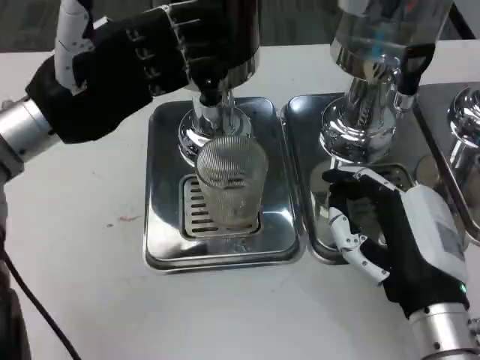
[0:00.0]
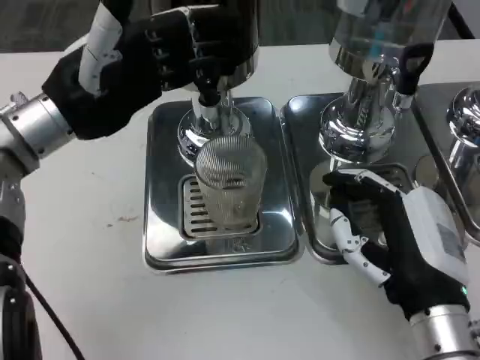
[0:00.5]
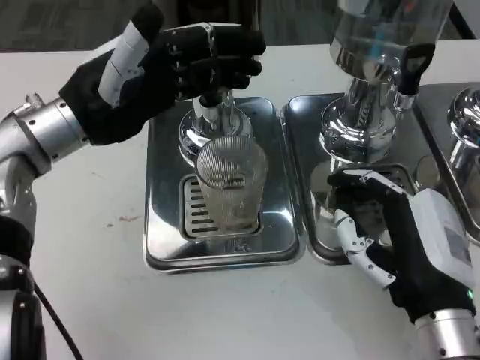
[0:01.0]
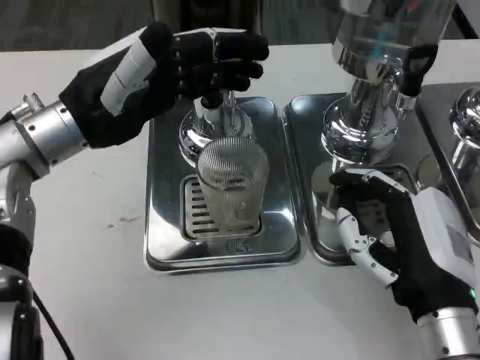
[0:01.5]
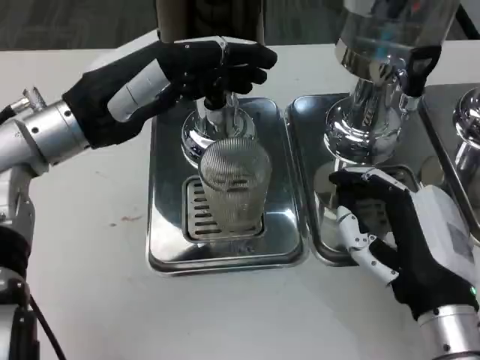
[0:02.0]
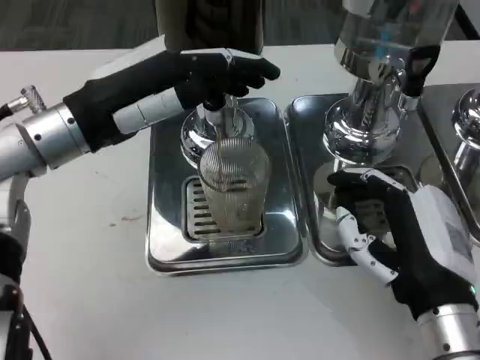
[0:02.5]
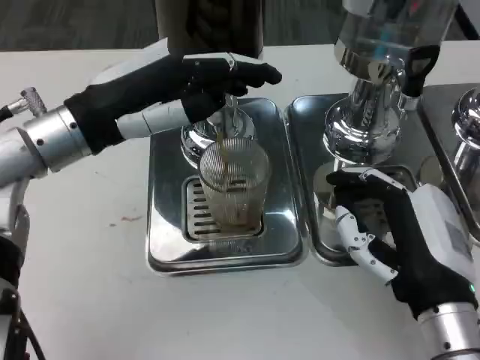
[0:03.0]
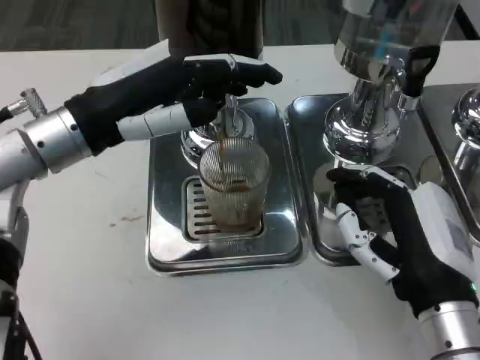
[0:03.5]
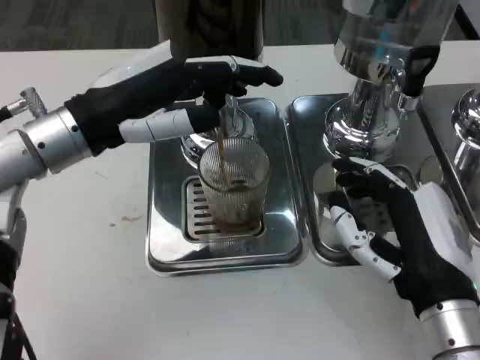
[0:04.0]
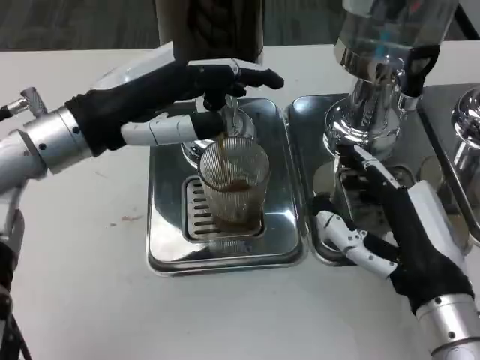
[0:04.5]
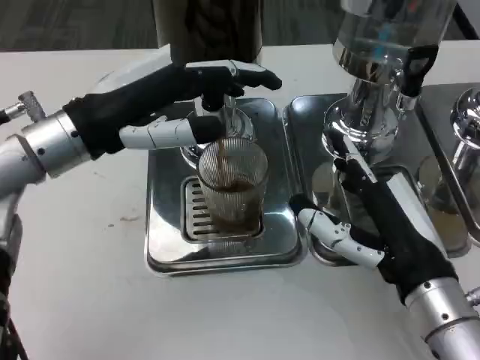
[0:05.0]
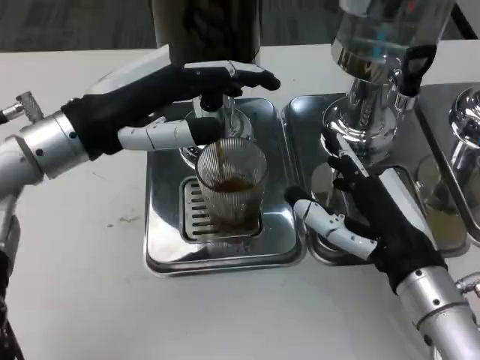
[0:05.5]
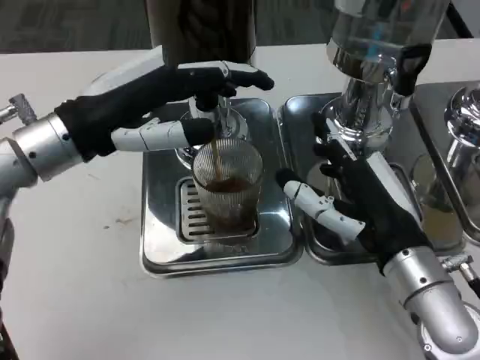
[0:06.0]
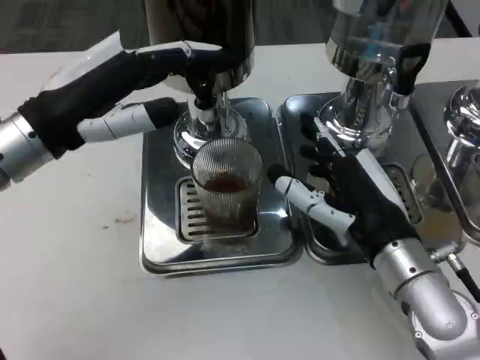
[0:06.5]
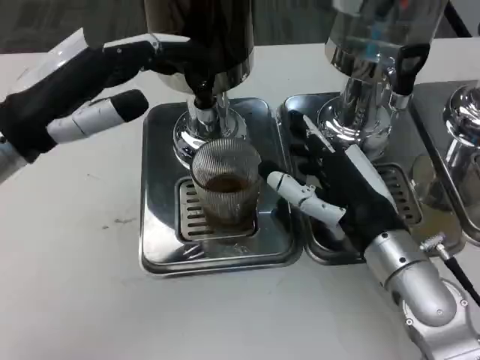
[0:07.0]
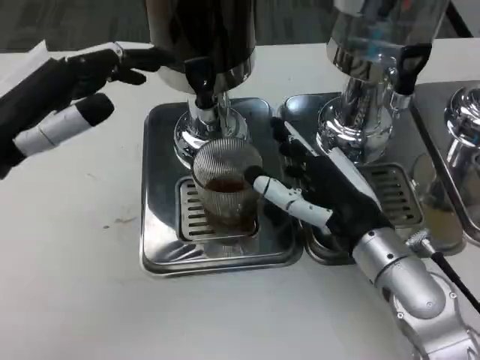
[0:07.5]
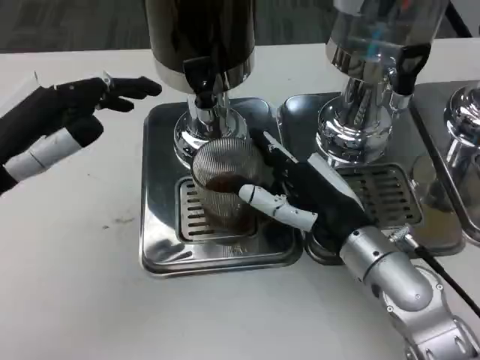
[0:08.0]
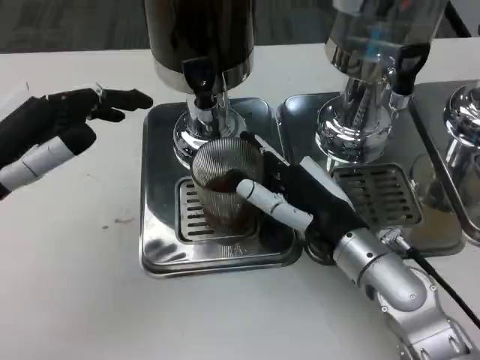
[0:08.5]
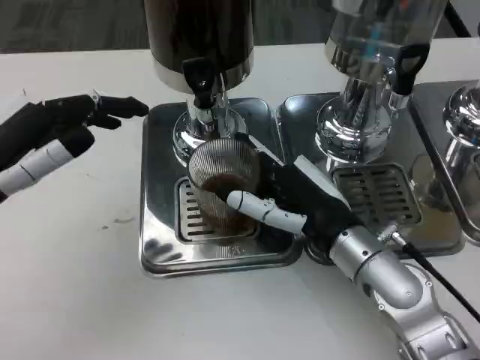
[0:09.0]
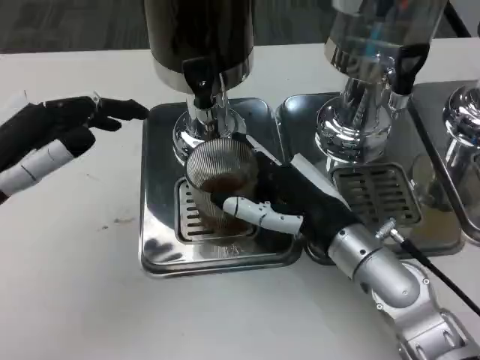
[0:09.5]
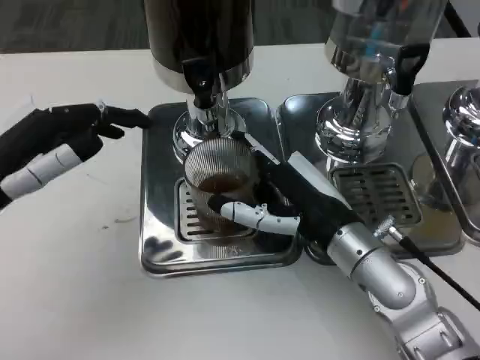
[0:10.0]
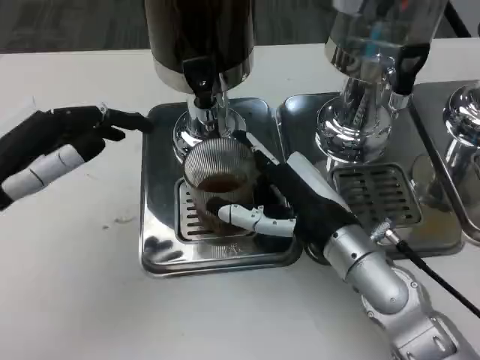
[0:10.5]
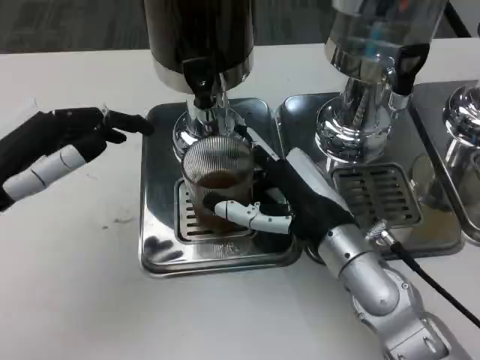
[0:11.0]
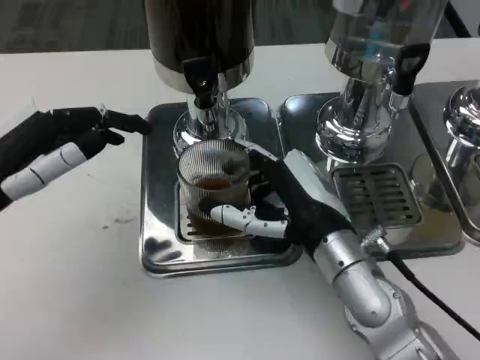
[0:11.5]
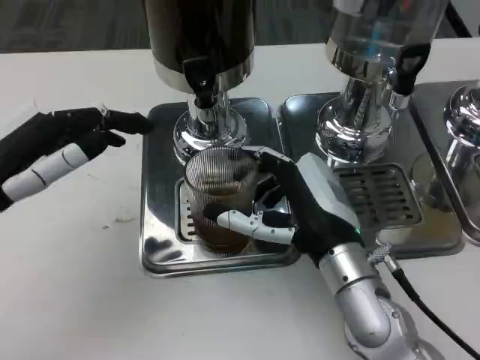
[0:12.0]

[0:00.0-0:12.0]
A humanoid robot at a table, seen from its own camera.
Task of the whole recording: Grasp the cup under the faucet to collect the drink, then remove the cup.
0:02.0 to 0:04.0: There are only small adjustments of the hands.
0:04.0 to 0:06.0: The right hand travels forward by about 5 cm.
0:06.0 to 0:08.0: The right hand ends up roughly 5 cm from where it was. The left hand is displaced to the left and backward by some 10 cm.
0:08.0 to 0:10.0: The hands move only a little.
0:10.0 to 0:12.0: The hands make only small movements.

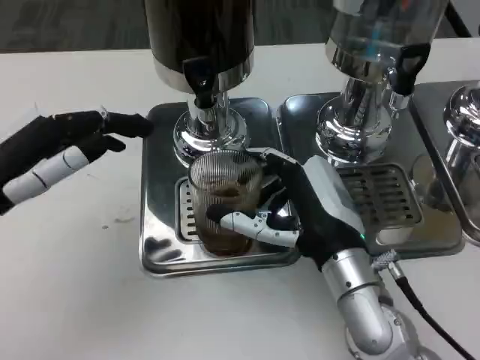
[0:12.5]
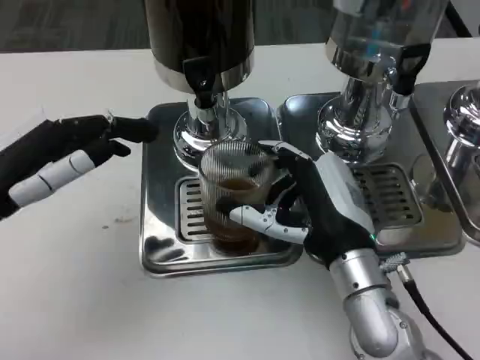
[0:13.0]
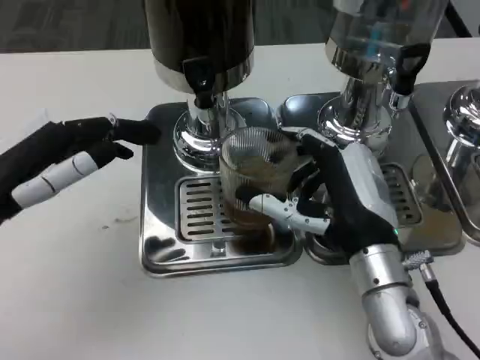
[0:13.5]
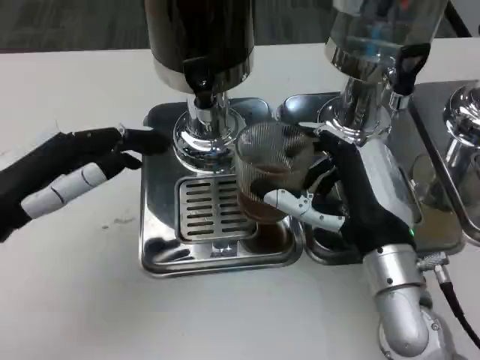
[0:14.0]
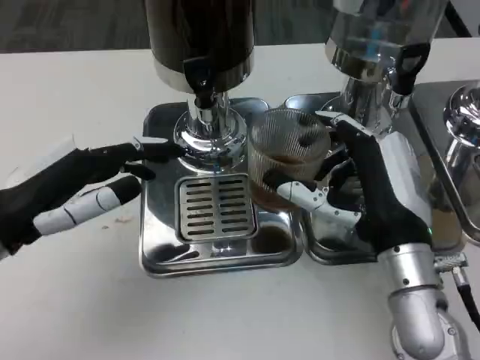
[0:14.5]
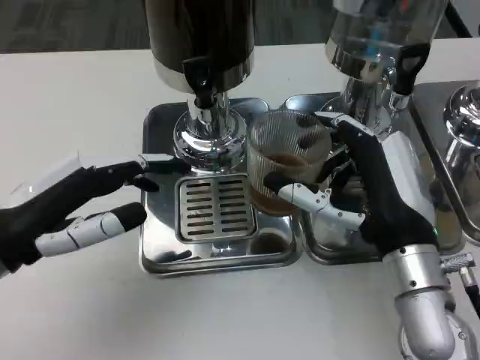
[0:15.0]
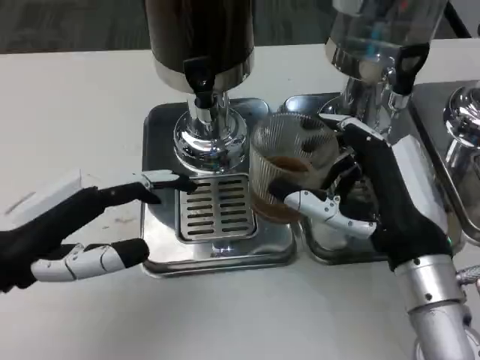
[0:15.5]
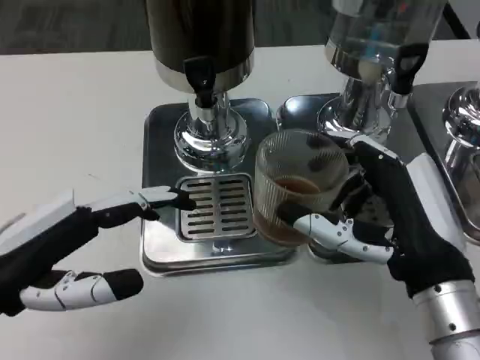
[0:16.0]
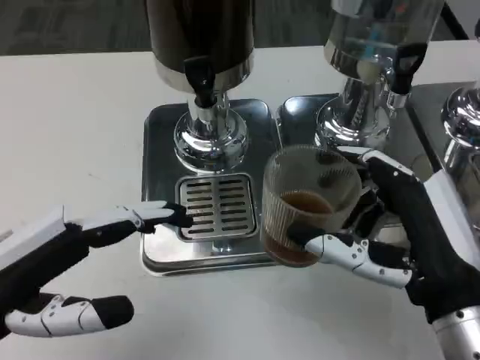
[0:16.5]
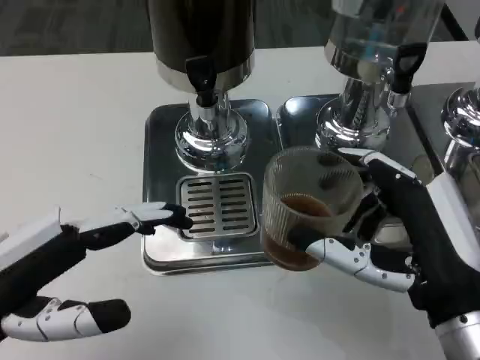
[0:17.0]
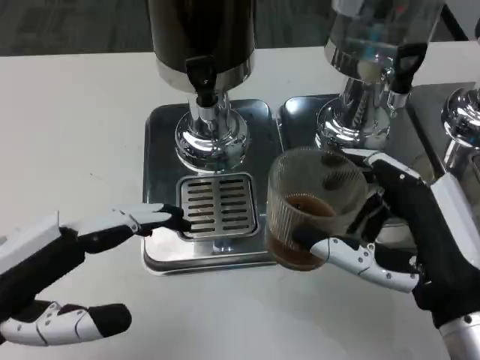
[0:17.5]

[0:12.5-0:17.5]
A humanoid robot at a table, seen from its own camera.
Task of the whole recording: Grasp the cup under the faucet to collect the drink, then remove the cup.
0:12.5 to 0:15.0: The right hand moves about 5 cm.
0:15.0 to 0:17.5: The two hands go about 5 cm backward.
